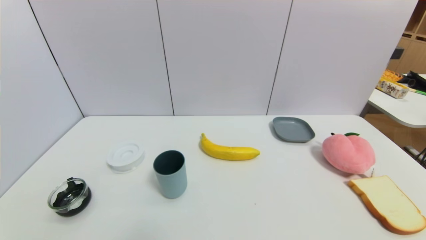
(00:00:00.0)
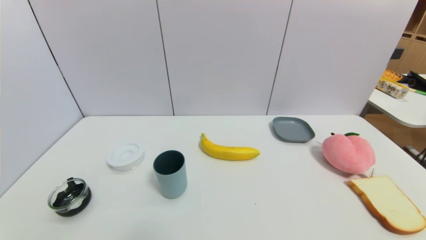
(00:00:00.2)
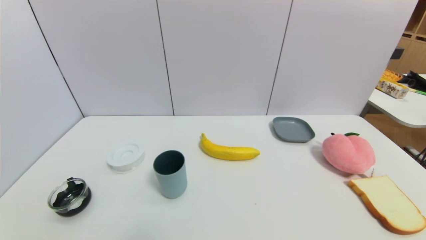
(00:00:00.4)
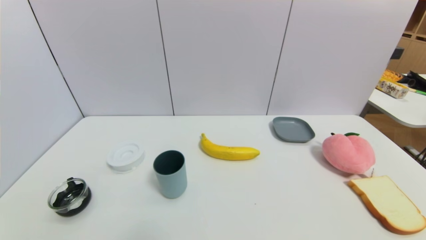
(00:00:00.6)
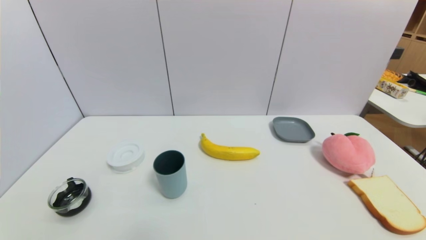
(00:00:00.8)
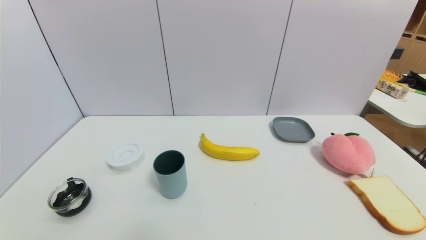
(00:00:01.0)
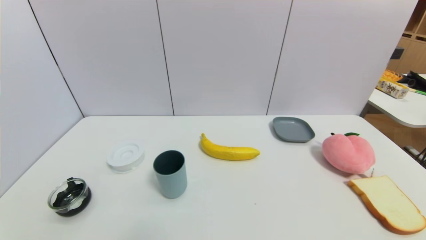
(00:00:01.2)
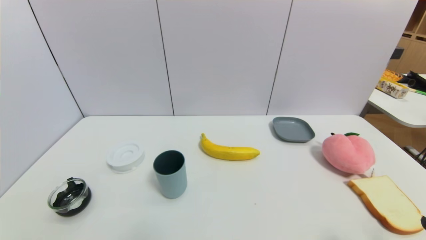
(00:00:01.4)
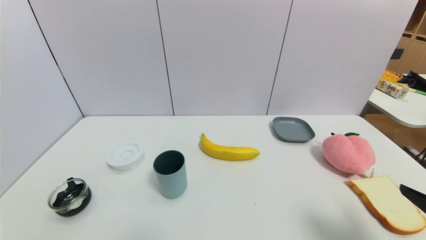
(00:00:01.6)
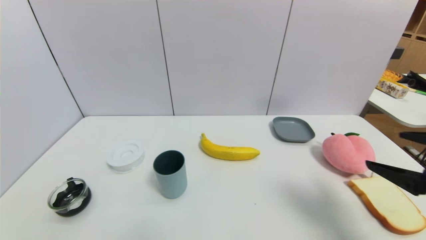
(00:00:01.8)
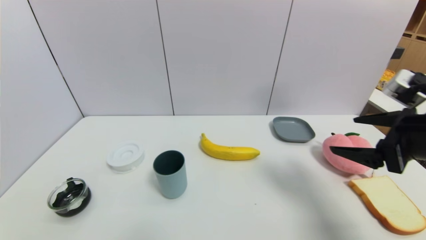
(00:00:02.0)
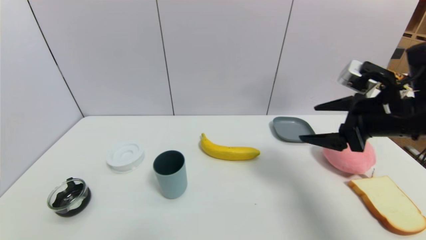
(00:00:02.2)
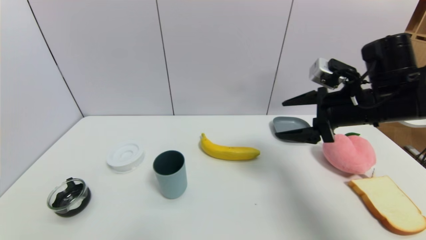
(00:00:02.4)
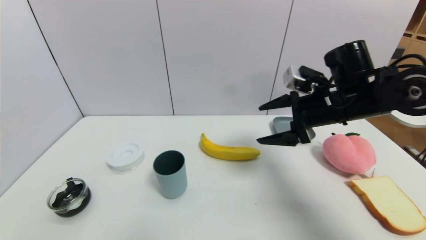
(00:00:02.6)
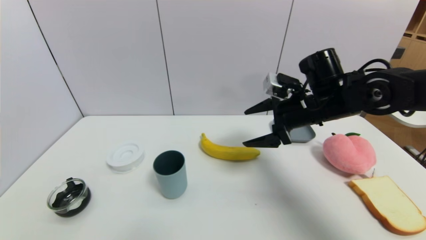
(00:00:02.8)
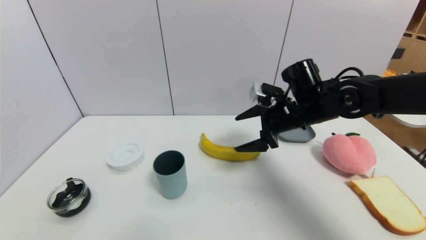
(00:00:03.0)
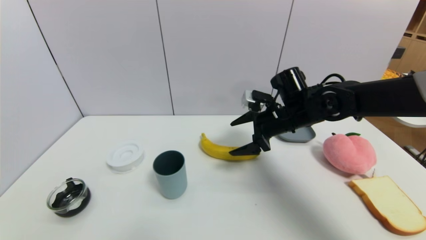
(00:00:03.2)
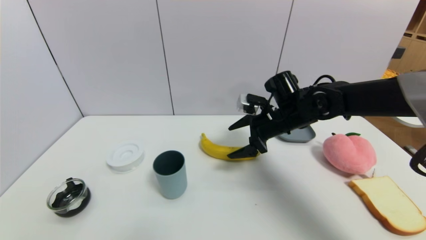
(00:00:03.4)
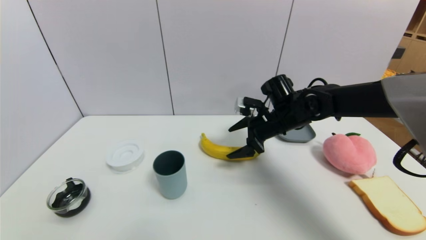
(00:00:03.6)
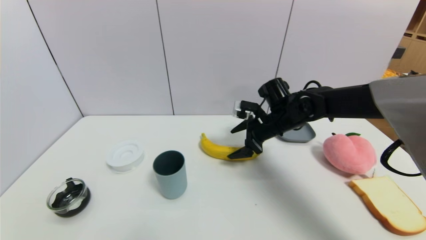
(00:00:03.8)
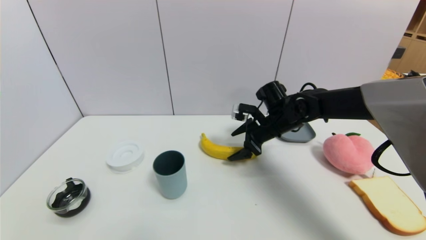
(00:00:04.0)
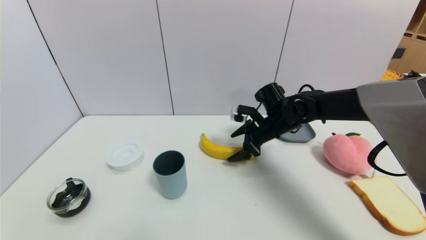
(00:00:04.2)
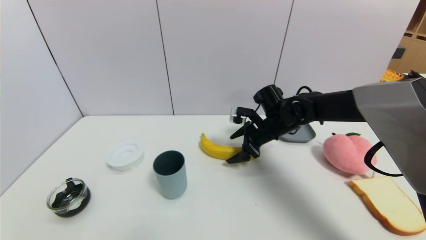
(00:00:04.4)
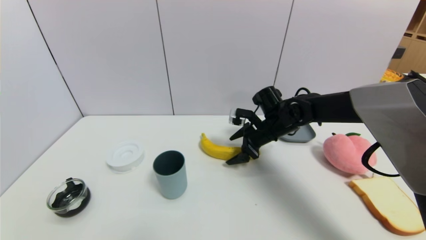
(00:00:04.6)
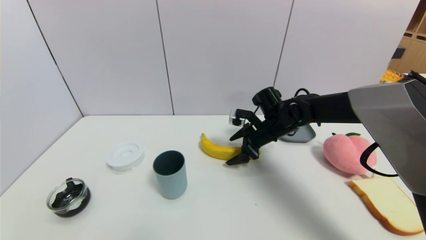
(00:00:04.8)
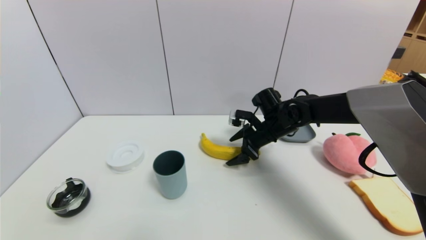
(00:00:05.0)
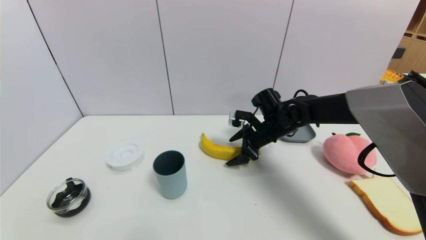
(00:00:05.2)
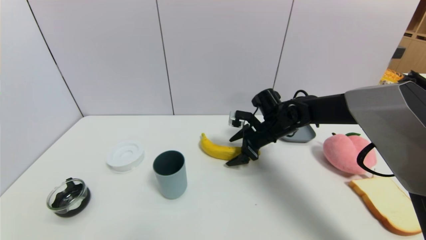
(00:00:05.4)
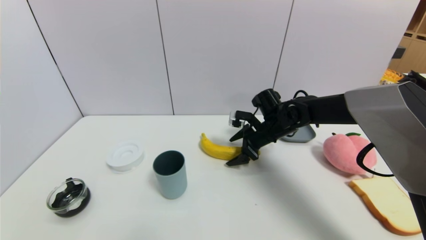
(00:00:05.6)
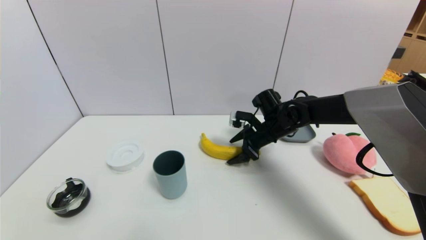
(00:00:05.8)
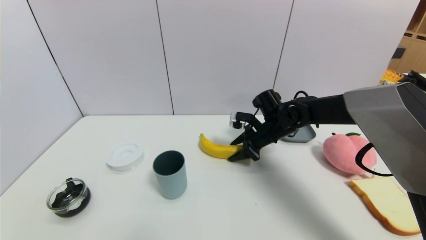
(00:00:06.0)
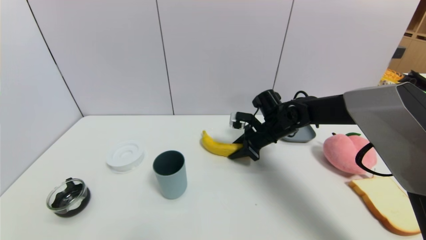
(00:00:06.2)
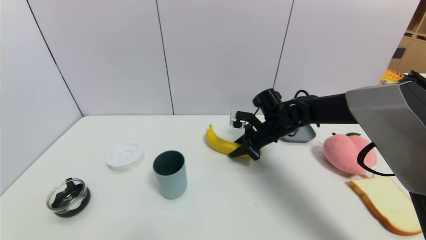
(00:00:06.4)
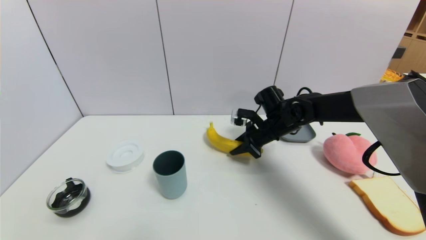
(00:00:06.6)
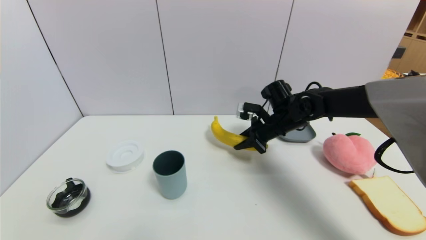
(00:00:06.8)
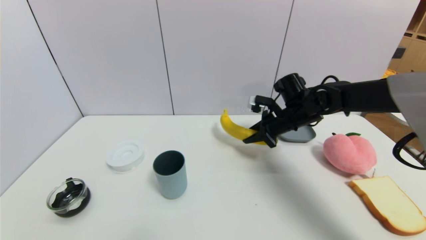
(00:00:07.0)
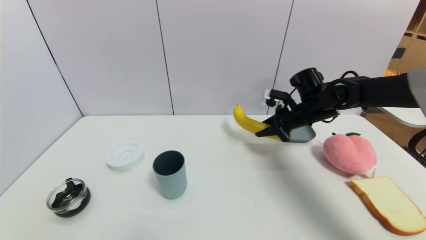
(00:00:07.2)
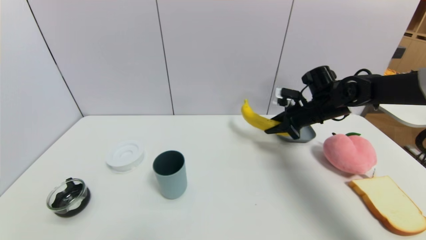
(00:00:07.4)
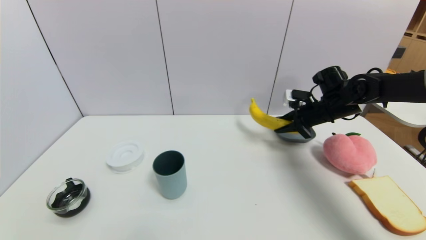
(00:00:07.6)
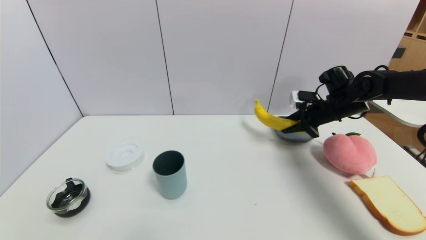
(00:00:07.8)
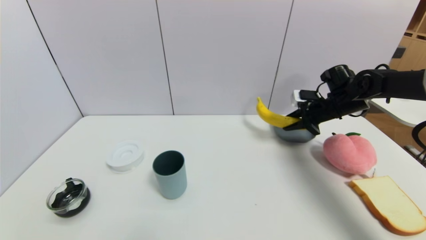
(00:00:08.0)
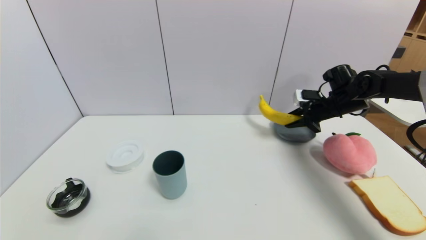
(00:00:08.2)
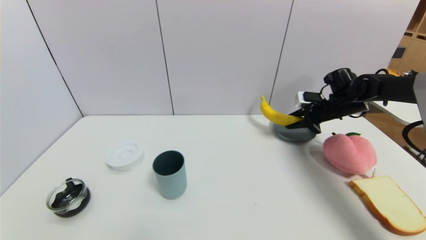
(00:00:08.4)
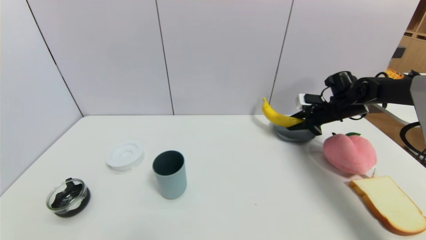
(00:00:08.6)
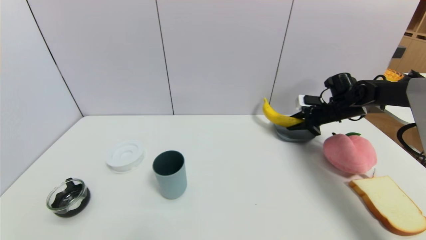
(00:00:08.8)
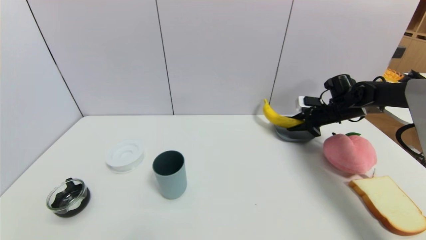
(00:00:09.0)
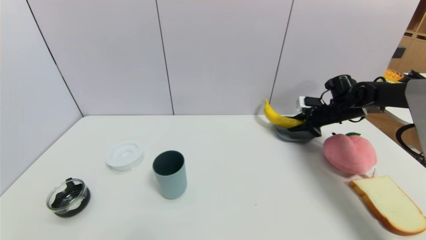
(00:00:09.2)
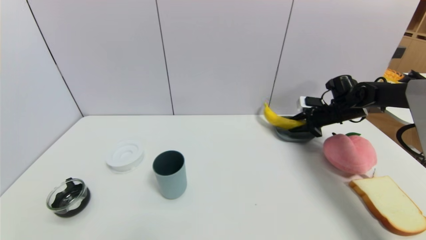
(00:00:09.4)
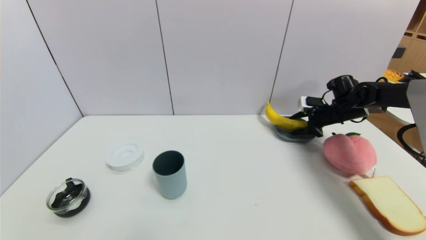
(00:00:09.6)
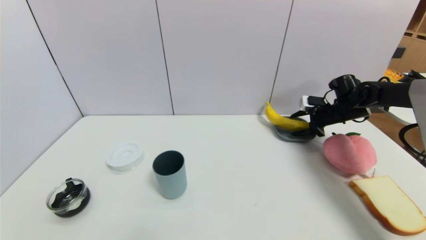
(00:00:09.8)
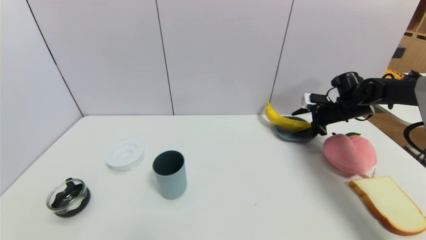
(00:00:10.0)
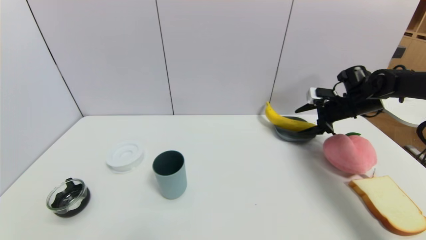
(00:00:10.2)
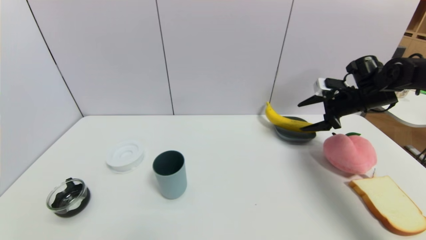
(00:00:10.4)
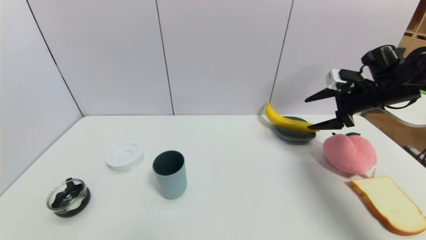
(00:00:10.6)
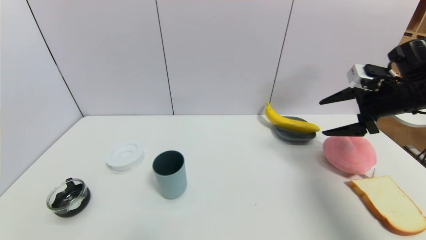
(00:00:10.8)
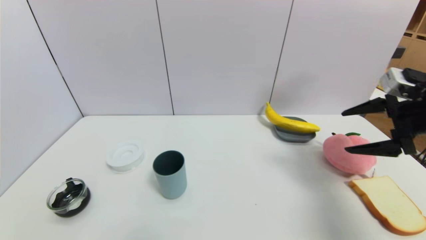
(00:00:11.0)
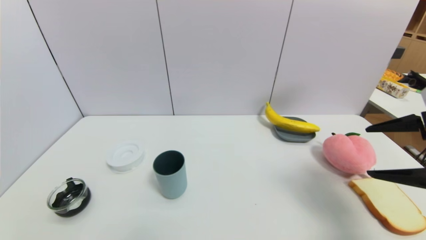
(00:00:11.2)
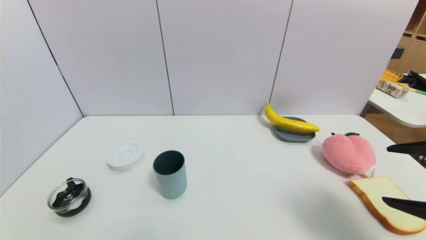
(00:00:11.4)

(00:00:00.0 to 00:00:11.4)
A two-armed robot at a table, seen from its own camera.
Task of the whole recording: use a gripper to pick the target object and place on the dish.
Step, 00:00:00.0 - 00:00:06.2: Grasp the banana with the right gripper.
Step, 00:00:06.4 - 00:00:10.6: Place the banana on the dish with the right gripper.
00:00:01.4 - 00:00:02.8: The right gripper moves forward and to the left, approximately 35 cm.
00:00:02.8 - 00:00:04.2: The right gripper moves downward and forward, some 10 cm.
00:00:04.2 - 00:00:05.6: The grippers make only small movements.
00:00:05.6 - 00:00:07.2: The right gripper is displaced to the right and upward by some 10 cm, and closes up.
00:00:07.2 - 00:00:08.6: The right gripper heads to the right and forward, covering about 15 cm.
00:00:08.6 - 00:00:10.0: The right gripper opens up.
00:00:10.0 - 00:00:11.4: The right gripper is displaced backward by some 35 cm.

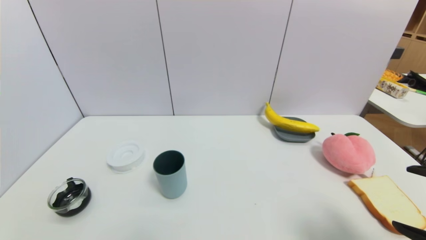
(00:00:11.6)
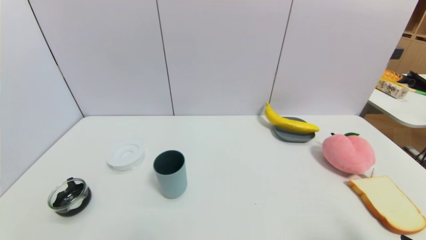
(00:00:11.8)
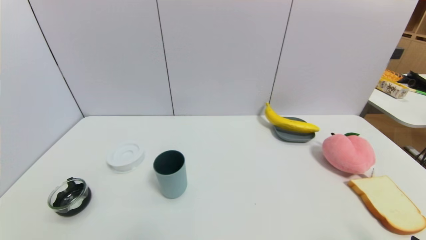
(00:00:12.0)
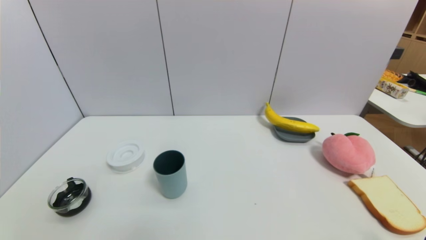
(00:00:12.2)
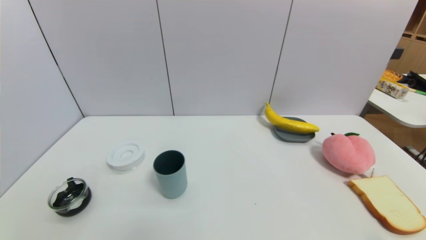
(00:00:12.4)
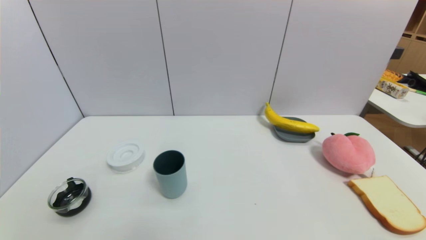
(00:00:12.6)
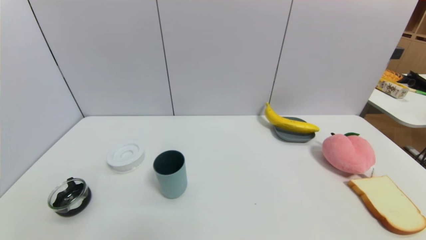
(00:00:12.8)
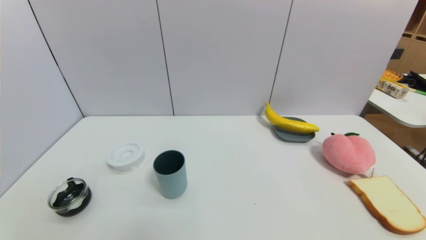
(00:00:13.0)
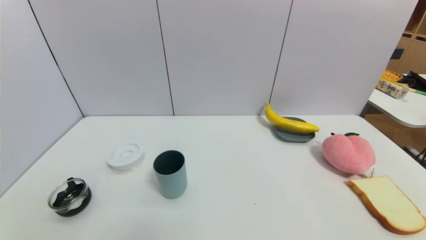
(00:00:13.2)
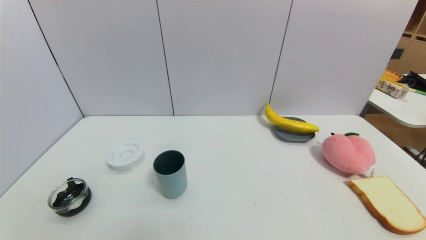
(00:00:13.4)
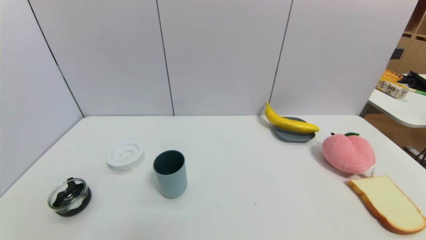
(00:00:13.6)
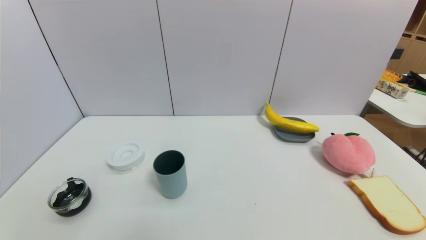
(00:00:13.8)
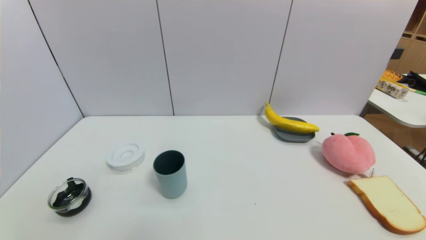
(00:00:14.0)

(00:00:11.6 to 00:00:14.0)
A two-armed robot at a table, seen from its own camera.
Task of the whole recording: use a gripper to pick the target object and place on the dish.
00:00:11.6 - 00:00:12.8: The right gripper shifts approximately 15 cm downward and backward.
